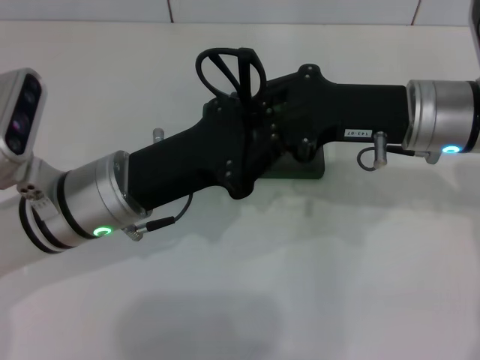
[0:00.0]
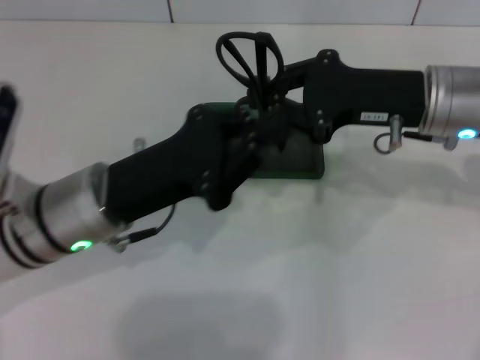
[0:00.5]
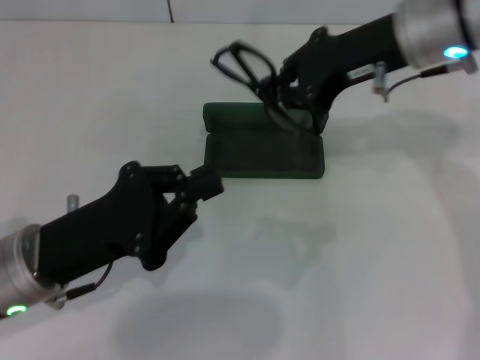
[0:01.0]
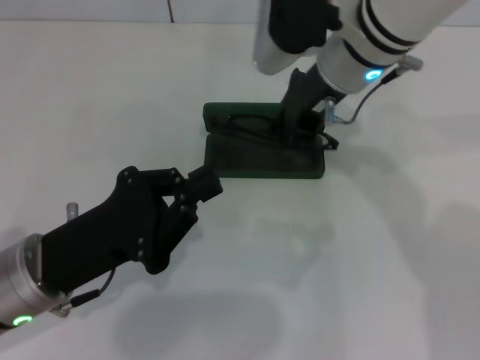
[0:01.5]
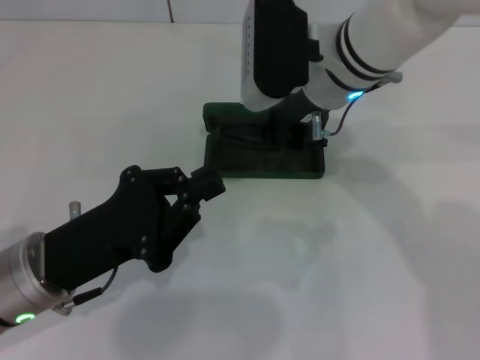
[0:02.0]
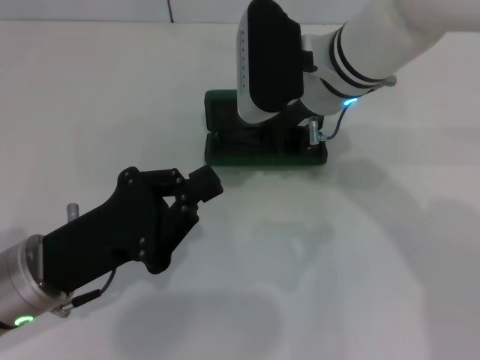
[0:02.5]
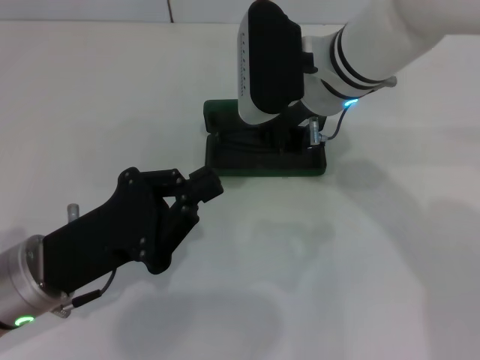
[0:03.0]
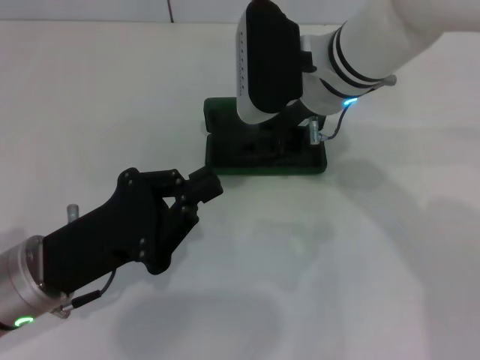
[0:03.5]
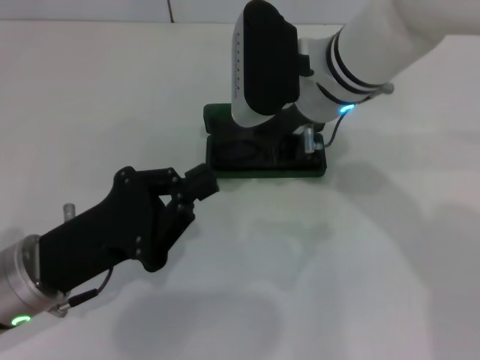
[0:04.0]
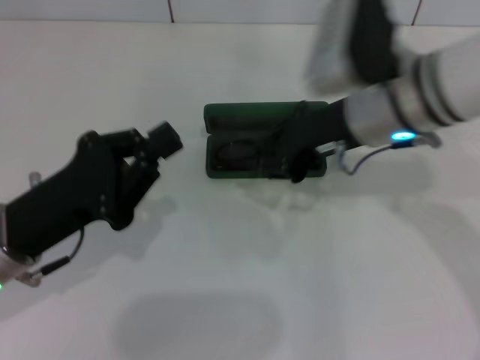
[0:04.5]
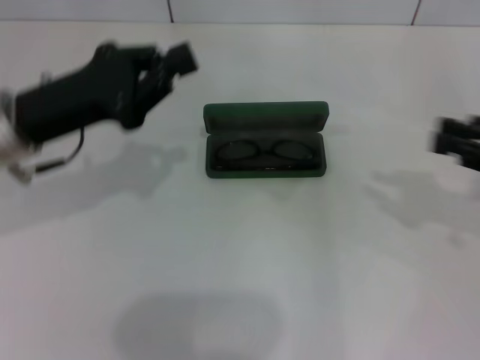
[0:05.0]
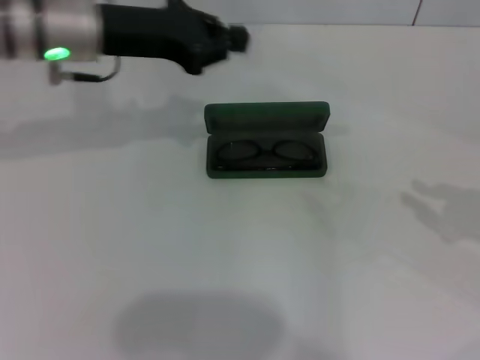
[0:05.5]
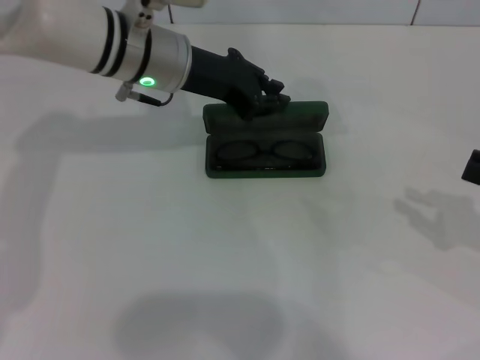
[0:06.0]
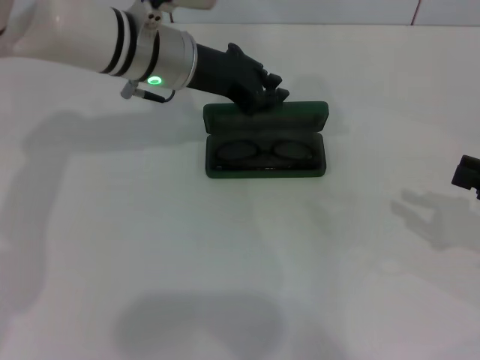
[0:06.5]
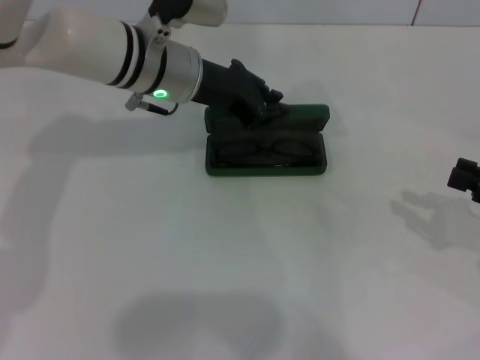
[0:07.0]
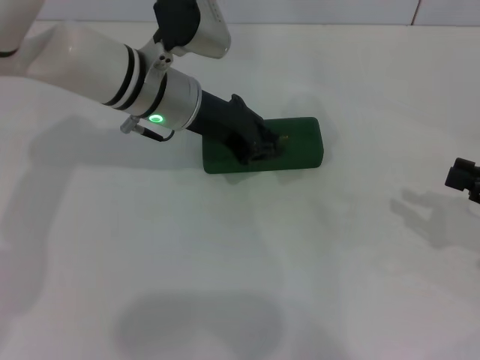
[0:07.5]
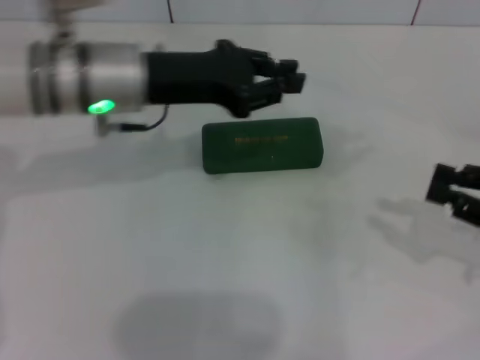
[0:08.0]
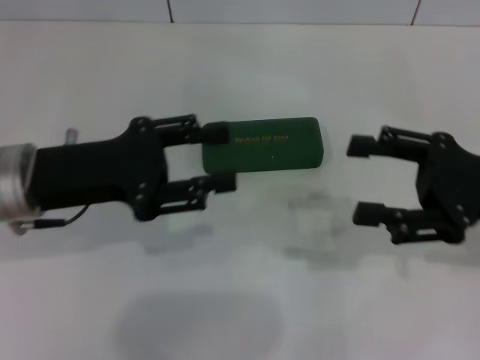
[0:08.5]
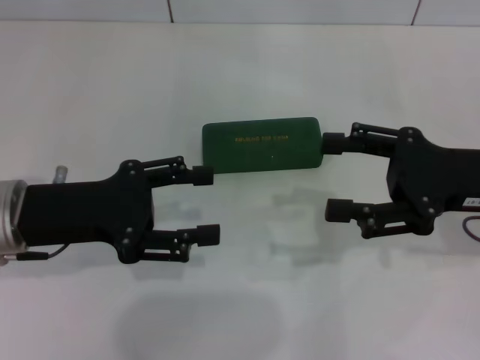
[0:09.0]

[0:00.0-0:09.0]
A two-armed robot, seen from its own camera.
Step, 0:00.5 to 0:04.0: Put the glasses into the case with your right hand.
Step, 0:04.5 to 0:07.5: Close the glasses case with your left hand.
0:00.0 to 0:02.0: The left gripper shifts about 10 cm backward and to the left. The right gripper heads to the left and forward, covering about 10 cm.
0:02.0 to 0:04.5: The right gripper heads to the right, covering roughly 5 cm.
0:04.5 to 0:07.0: The right gripper goes roughly 25 cm to the right. Meanwhile the left gripper is displaced forward and to the right by approximately 25 cm.
0:07.0 to 0:09.0: The left gripper travels backward and to the left by roughly 20 cm, and opens. Meanwhile the right gripper moves to the left, roughly 10 cm, and opens.
